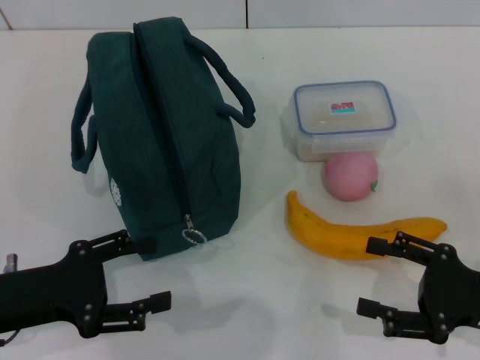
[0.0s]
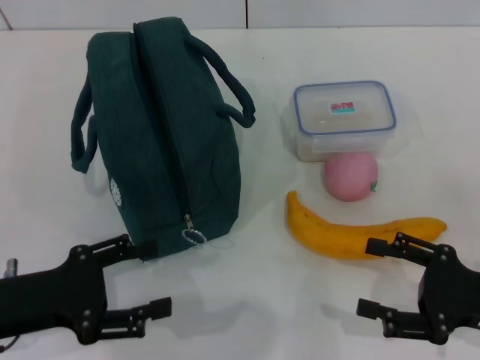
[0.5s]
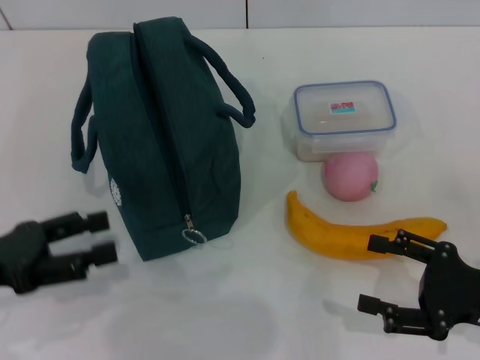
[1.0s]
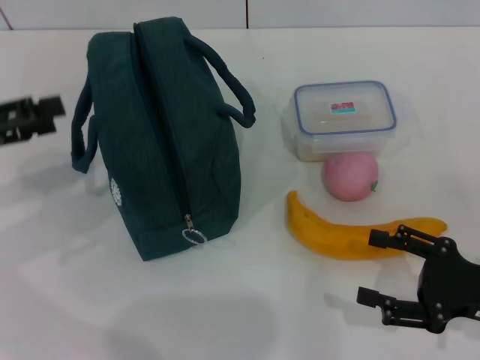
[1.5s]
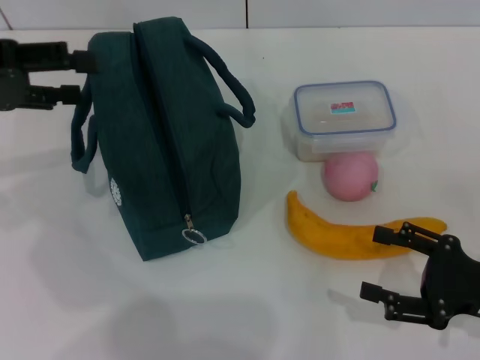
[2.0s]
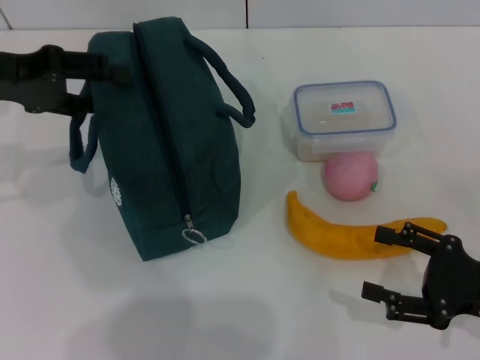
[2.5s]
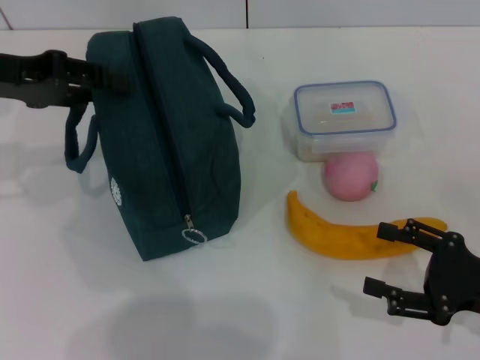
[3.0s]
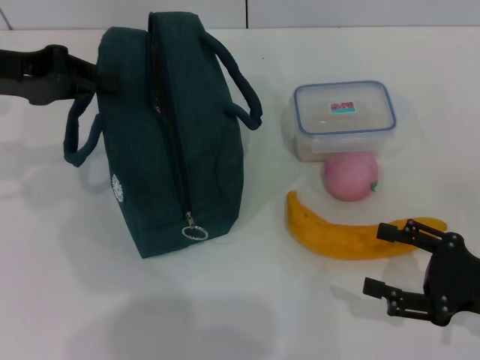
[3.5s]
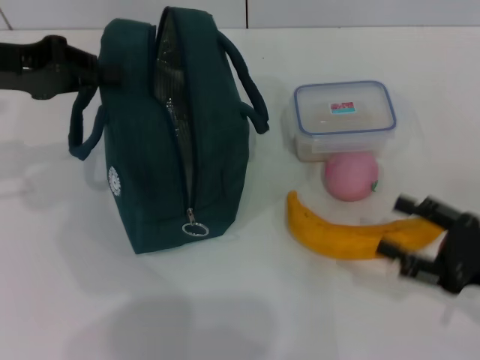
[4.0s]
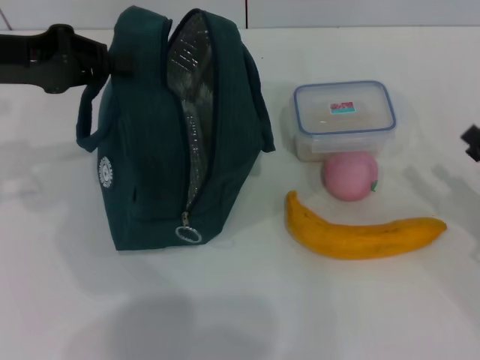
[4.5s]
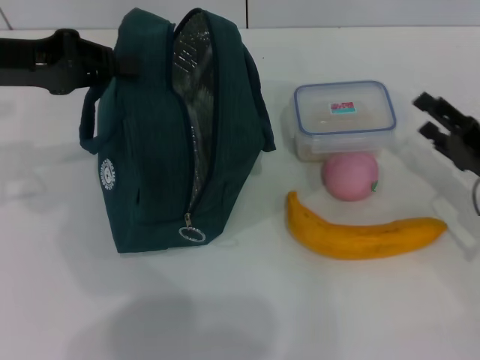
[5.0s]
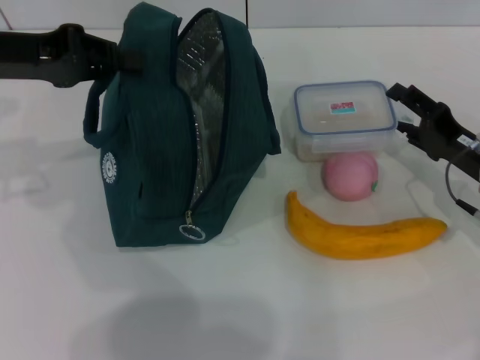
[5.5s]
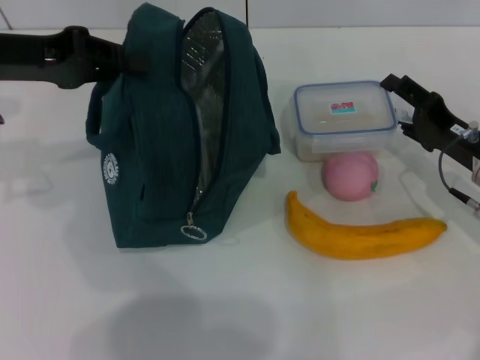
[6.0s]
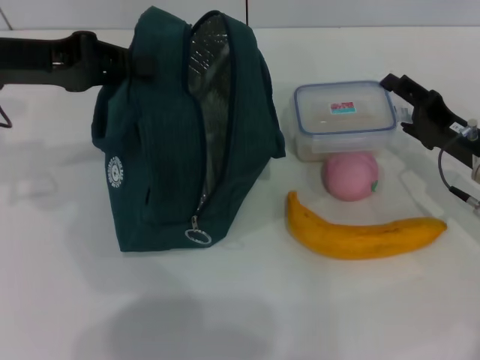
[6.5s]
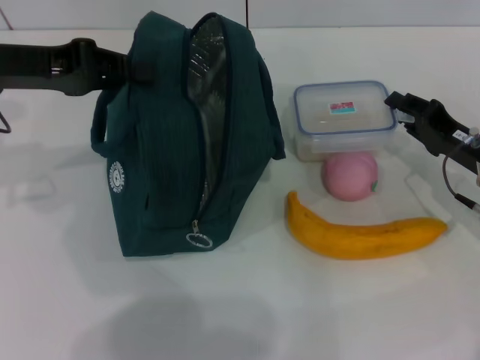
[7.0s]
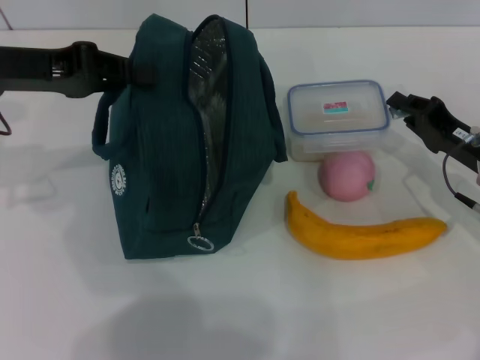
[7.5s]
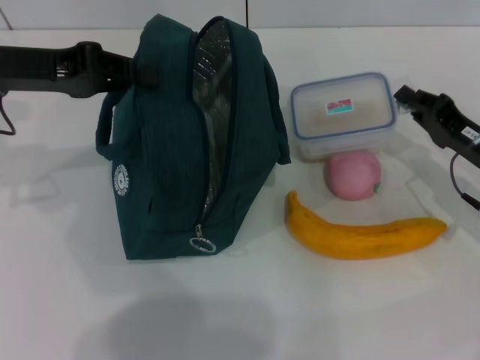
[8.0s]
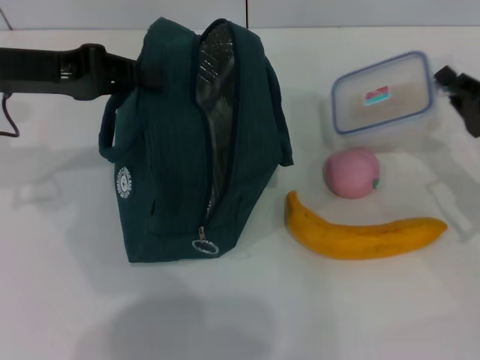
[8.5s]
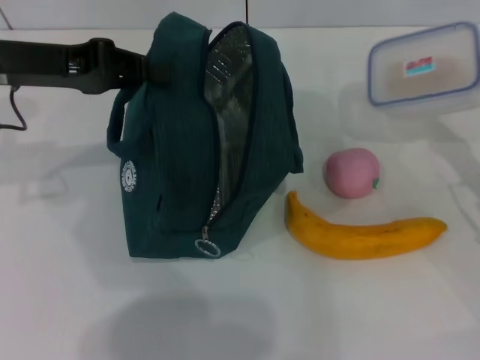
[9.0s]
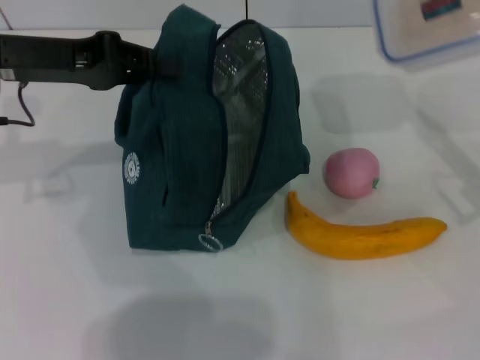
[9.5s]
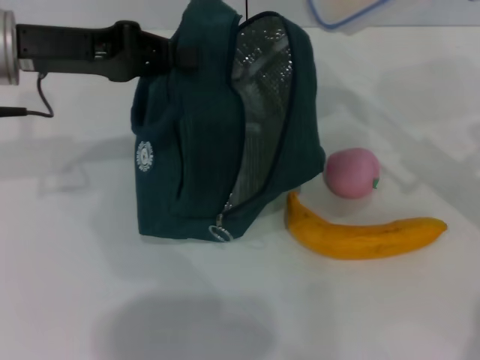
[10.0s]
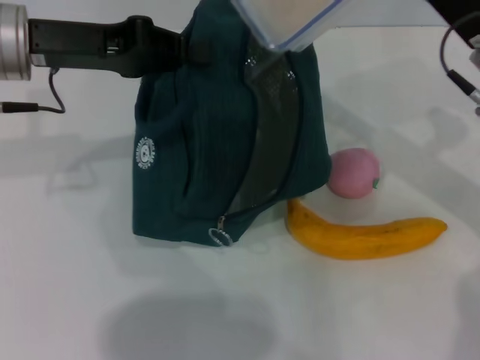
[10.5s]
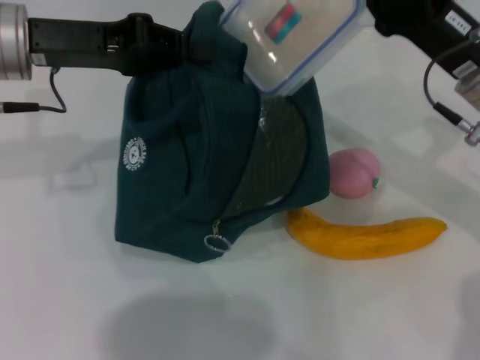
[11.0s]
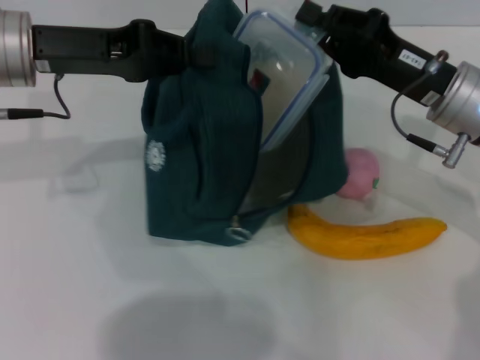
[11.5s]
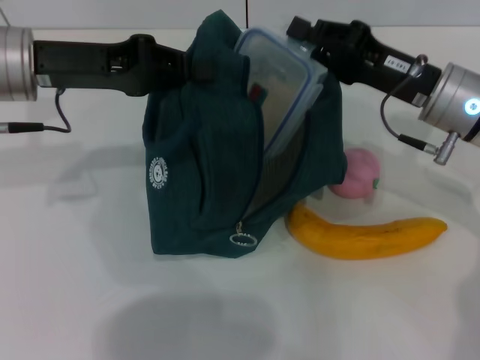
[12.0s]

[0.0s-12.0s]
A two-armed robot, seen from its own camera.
Step, 0.0s to 4.0s: Hold the lunch bag with your left hand.
Step, 4.5s to 8.0s: Pick up the lunch box with your right hand.
0.0s to 2.0s: The left gripper travels upward and forward by some 20 cm.
2.0s to 4.0s: The left gripper closes.
4.0s to 6.0s: The right gripper is displaced forward by roughly 10 cm.
6.0s to 8.0s: The right gripper closes up.
8.0s to 10.0s: The right gripper heads upward, covering roughly 10 cm.
10.0s to 12.0s: The right gripper shifts about 5 cm to the left.

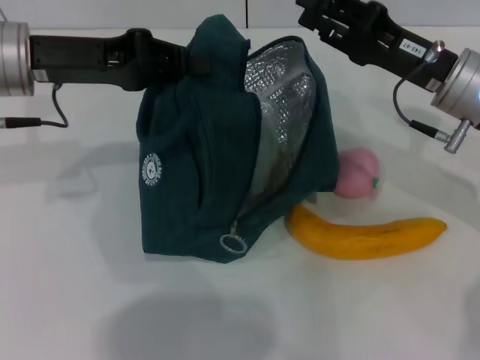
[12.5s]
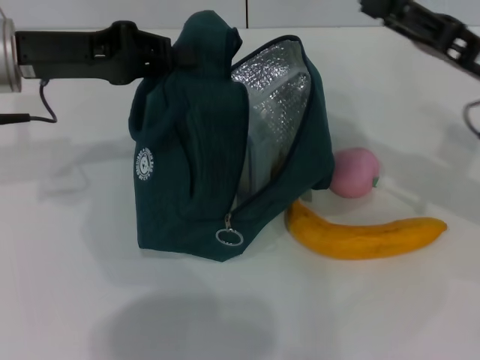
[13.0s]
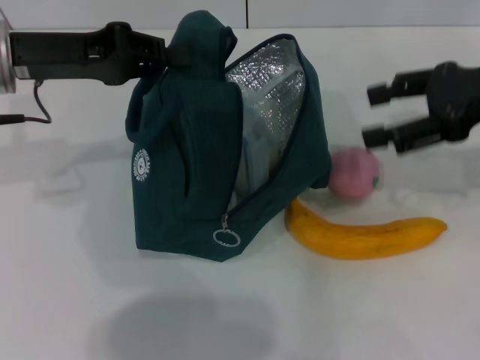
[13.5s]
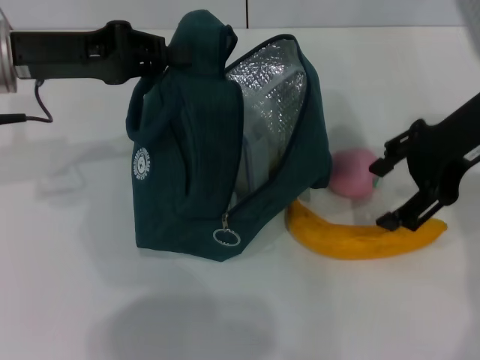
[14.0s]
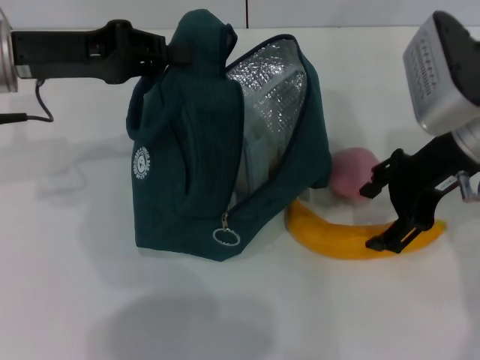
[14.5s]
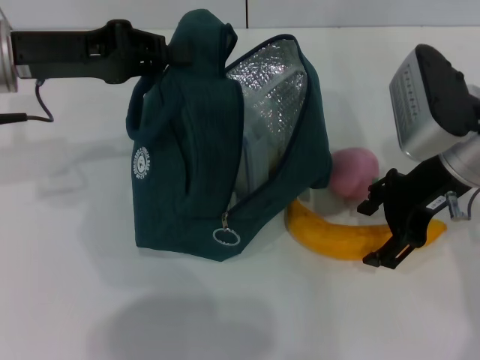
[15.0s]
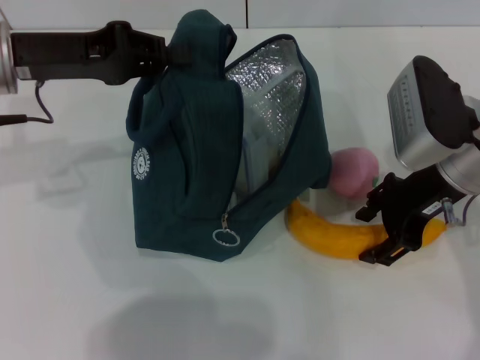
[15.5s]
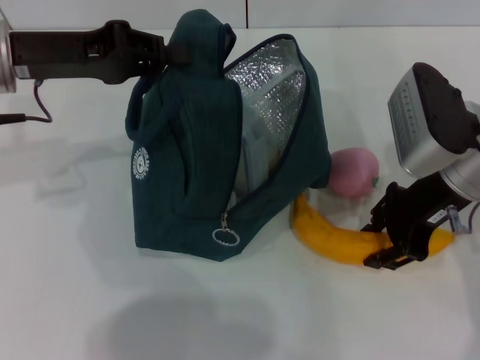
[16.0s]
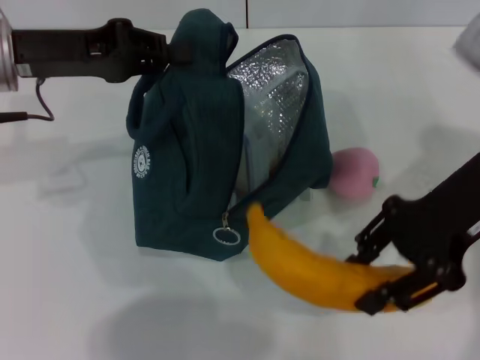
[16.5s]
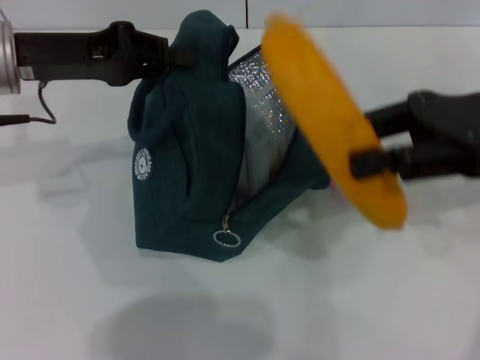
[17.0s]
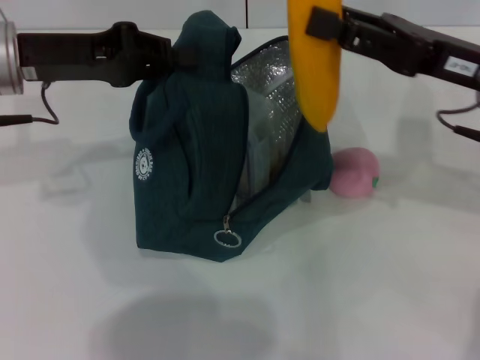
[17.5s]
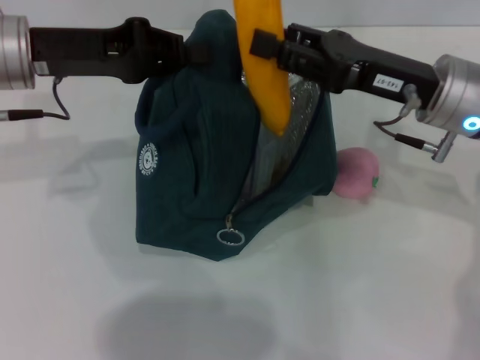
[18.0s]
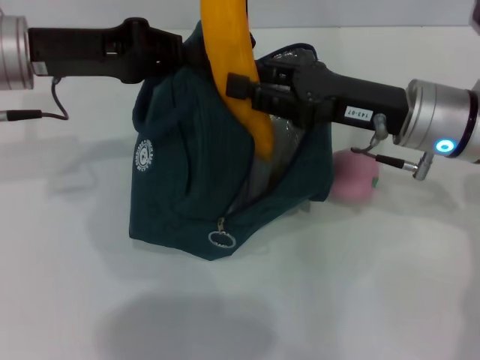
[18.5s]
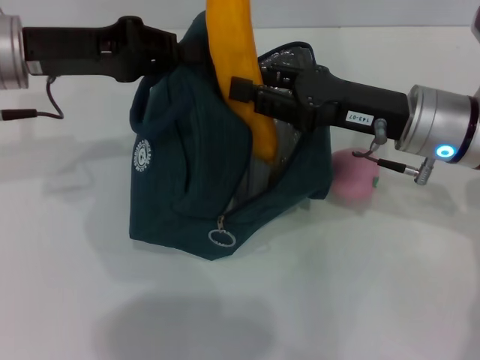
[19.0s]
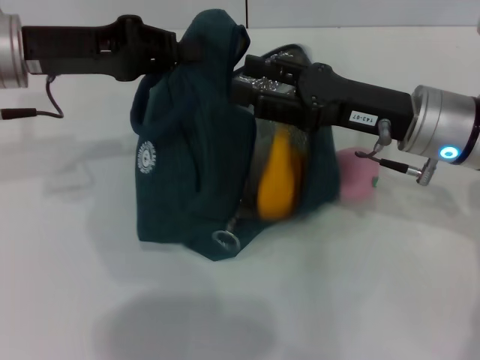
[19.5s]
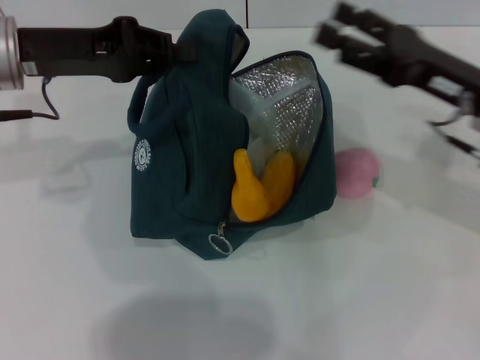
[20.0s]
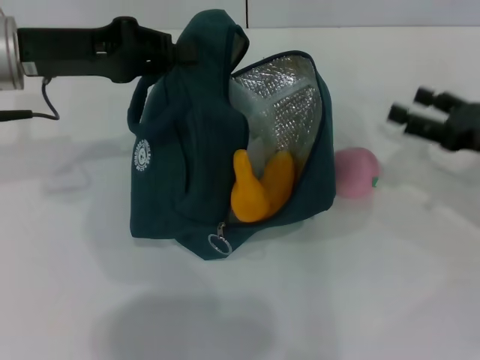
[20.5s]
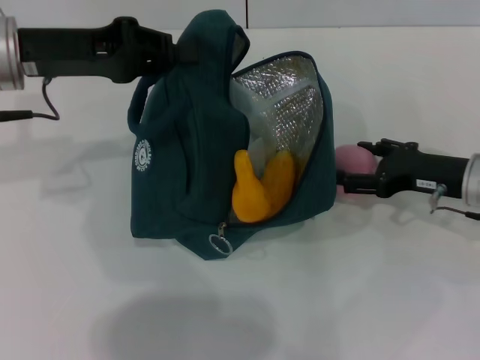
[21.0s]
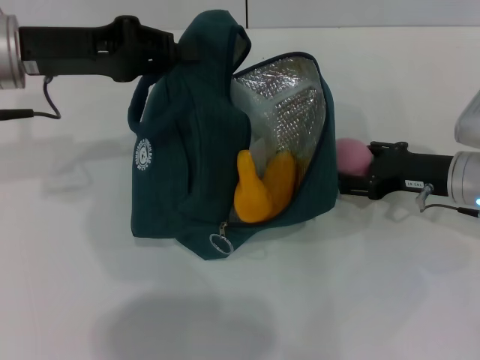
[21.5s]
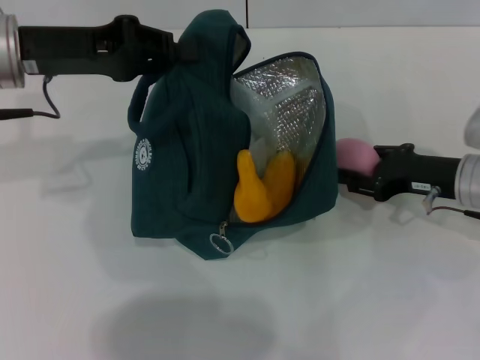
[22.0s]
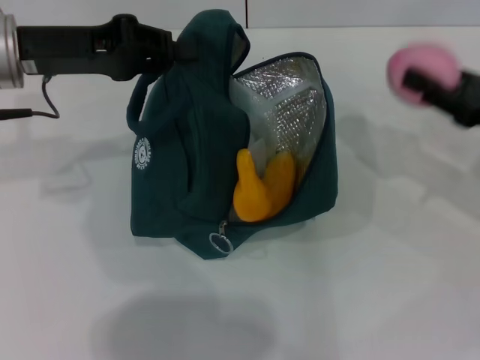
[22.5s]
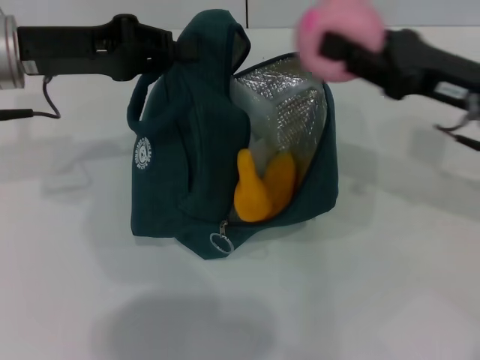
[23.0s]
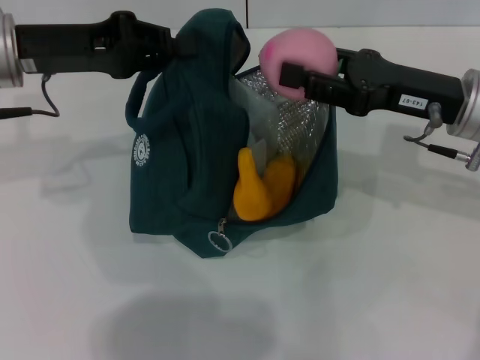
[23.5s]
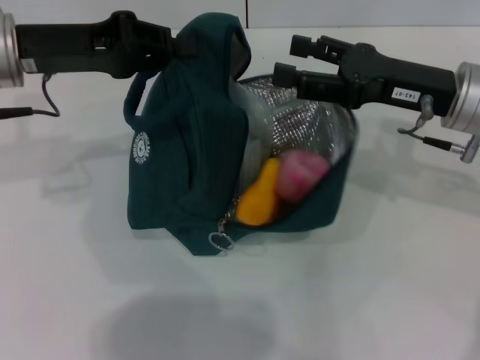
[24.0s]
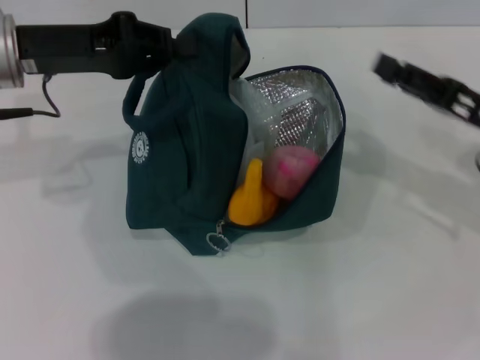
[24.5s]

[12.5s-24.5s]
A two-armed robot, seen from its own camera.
Step, 13.0s to 15.5s: Take the banana with your right hand.
Step, 16.0s to 19.5s: Put the banana into the lunch bag with your right hand.
Step, 20.0s to 21.5s: Grab the peach with your right hand.
12.5s to 14.5s: The right gripper shifts roughly 5 cm upward, and opens its fingers.
14.5s to 16.5s: The right gripper closes.
16.5s to 18.5s: The right gripper goes about 5 cm downward.
18.5s to 20.5s: The right gripper moves to the right, roughly 15 cm, and opens its fingers.
20.5s to 22.5s: The right gripper closes up.
22.5s to 24.5s: The right gripper travels to the left and back again, roughly 10 cm each way, and opens up.

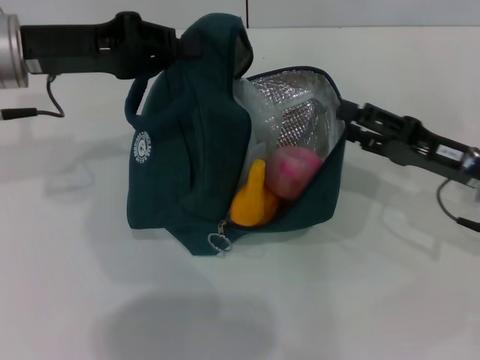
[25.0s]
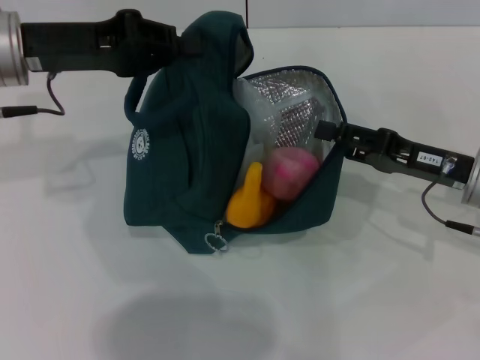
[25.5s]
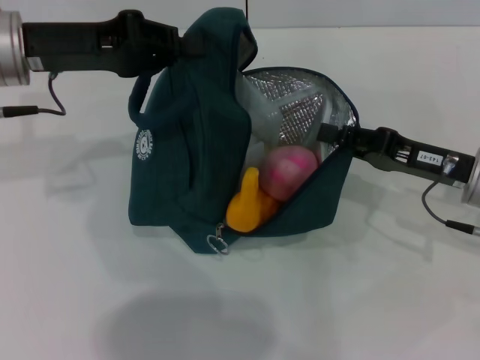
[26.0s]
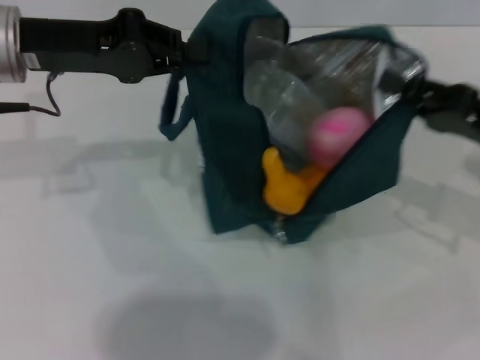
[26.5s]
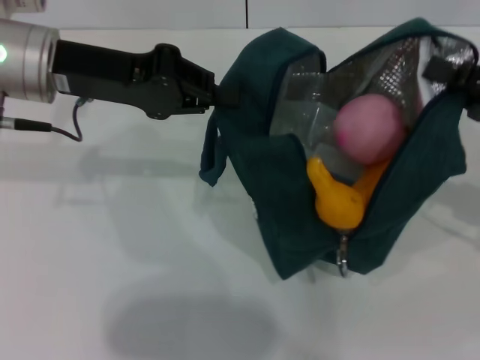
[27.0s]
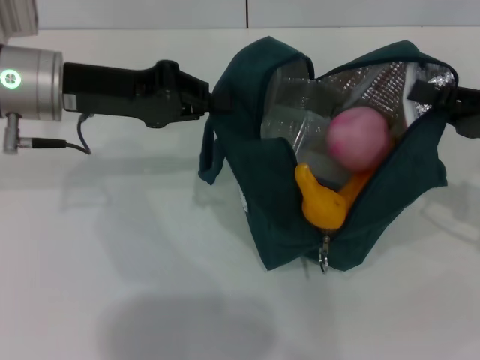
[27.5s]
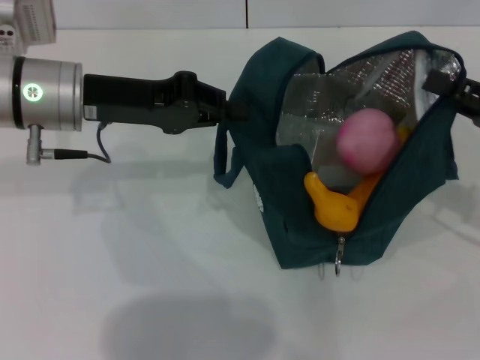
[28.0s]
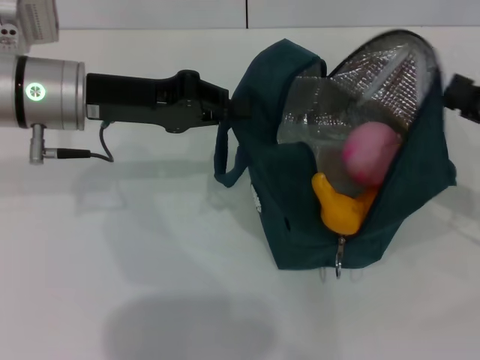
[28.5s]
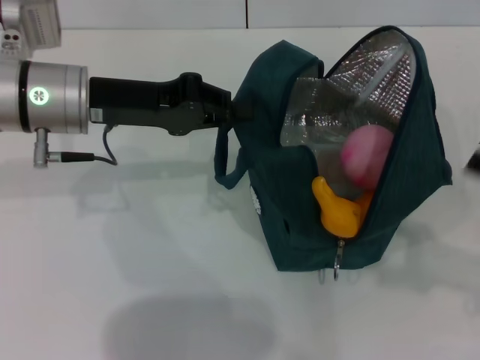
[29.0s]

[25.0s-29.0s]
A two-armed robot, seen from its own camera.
Step, 25.0s to 28.5s: Hold the lunch bag with your right hand.
25.0s to 27.0s: The right gripper shifts some 10 cm to the right and upward, and closes its fingers.
27.0s to 29.0s: The right gripper shifts roughly 10 cm backward, and opens its fingers.
